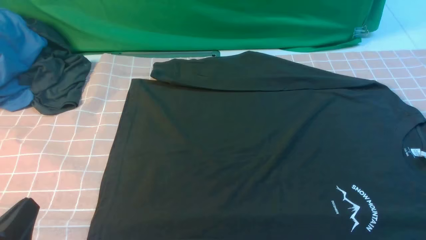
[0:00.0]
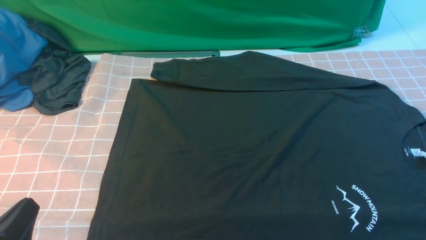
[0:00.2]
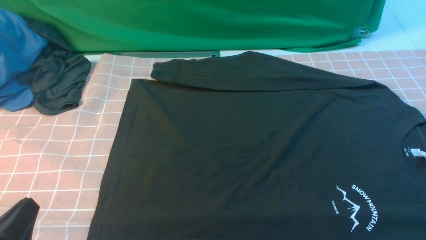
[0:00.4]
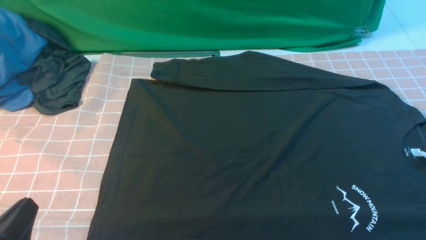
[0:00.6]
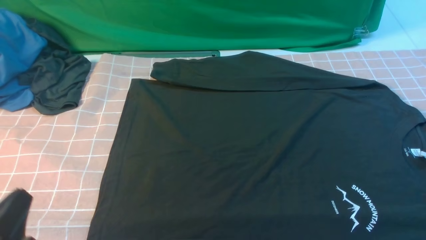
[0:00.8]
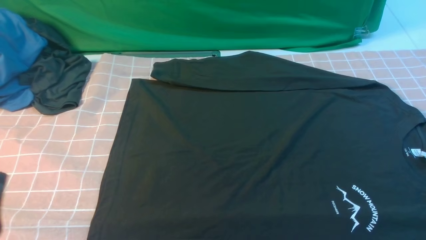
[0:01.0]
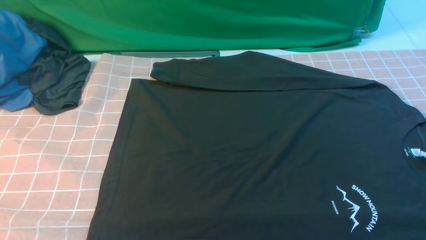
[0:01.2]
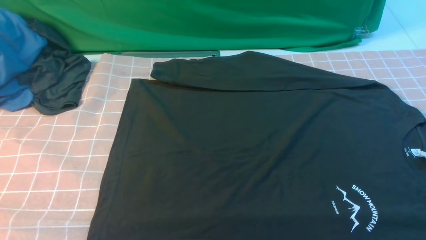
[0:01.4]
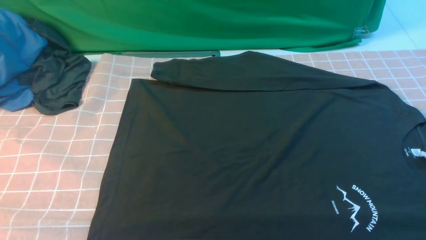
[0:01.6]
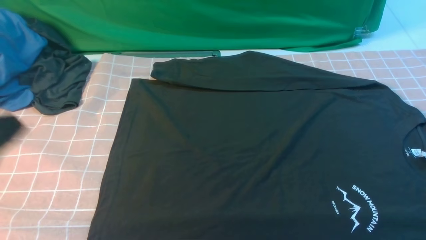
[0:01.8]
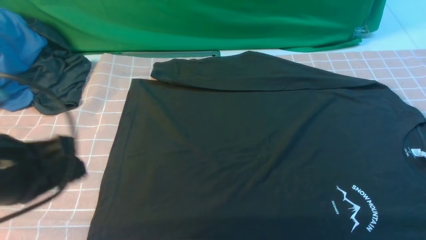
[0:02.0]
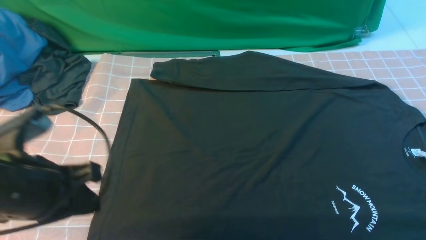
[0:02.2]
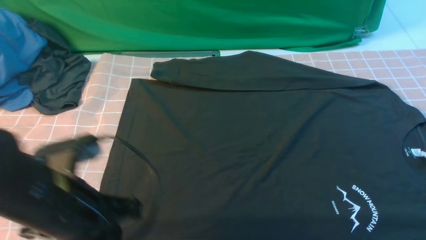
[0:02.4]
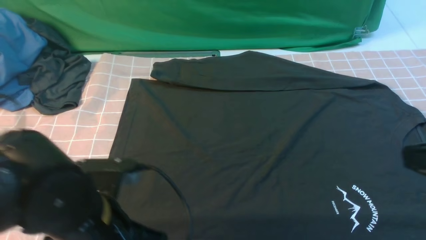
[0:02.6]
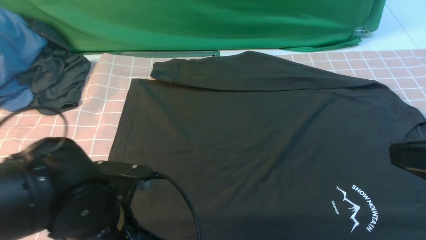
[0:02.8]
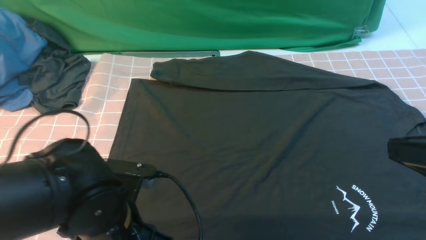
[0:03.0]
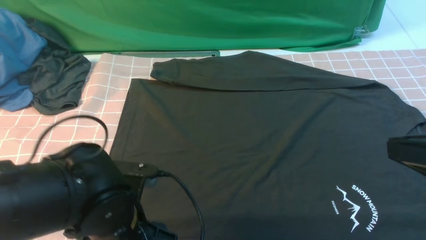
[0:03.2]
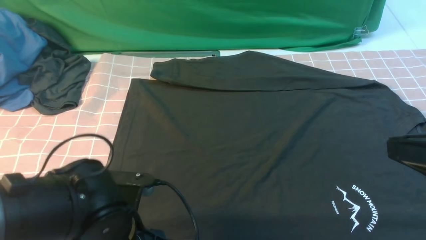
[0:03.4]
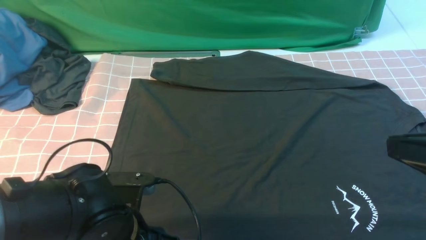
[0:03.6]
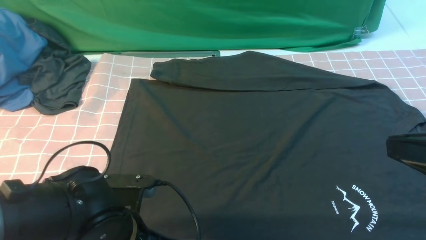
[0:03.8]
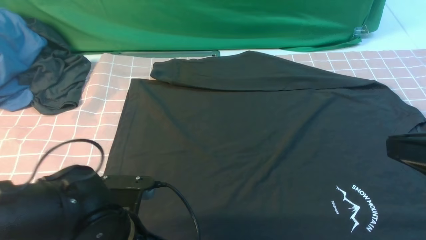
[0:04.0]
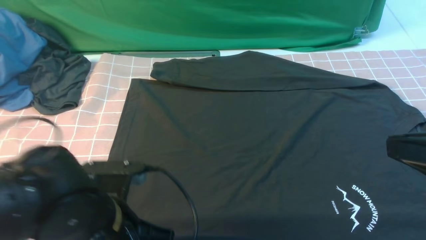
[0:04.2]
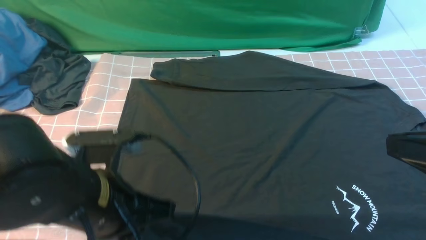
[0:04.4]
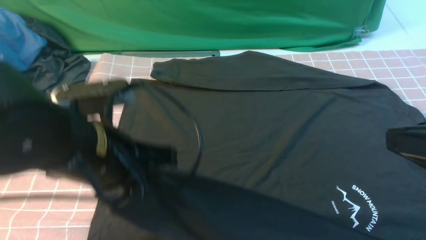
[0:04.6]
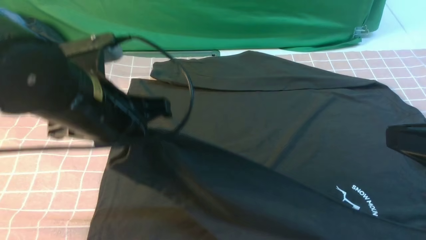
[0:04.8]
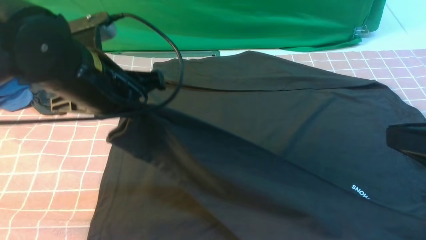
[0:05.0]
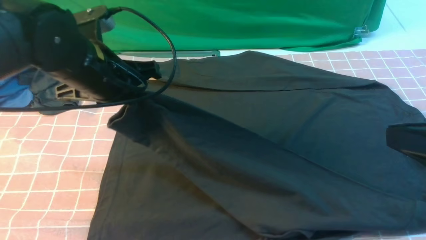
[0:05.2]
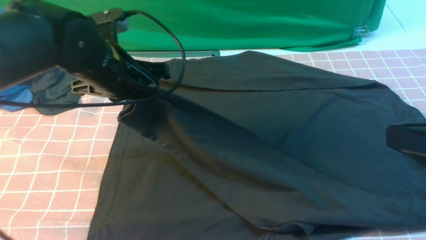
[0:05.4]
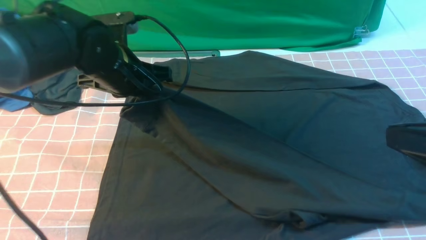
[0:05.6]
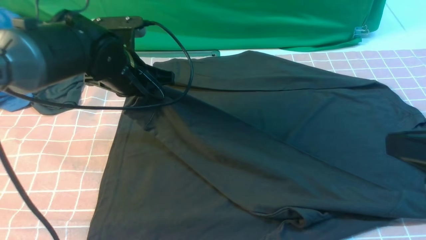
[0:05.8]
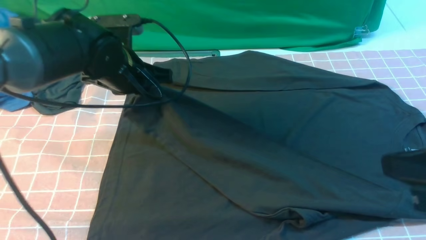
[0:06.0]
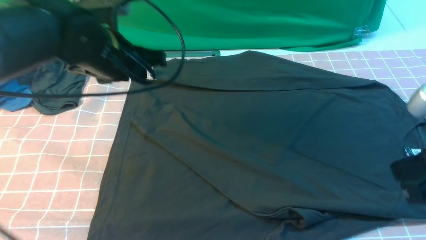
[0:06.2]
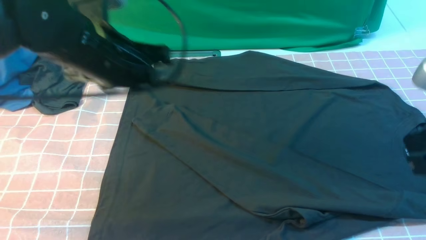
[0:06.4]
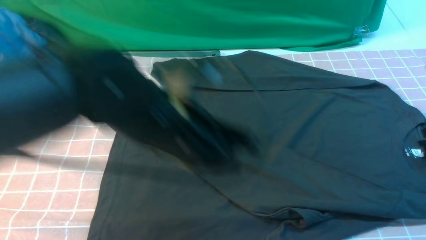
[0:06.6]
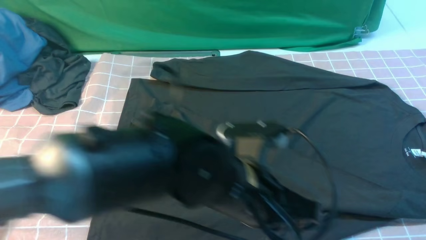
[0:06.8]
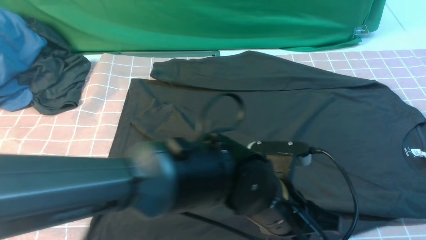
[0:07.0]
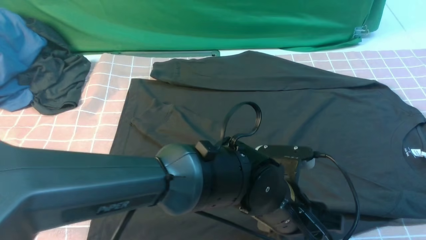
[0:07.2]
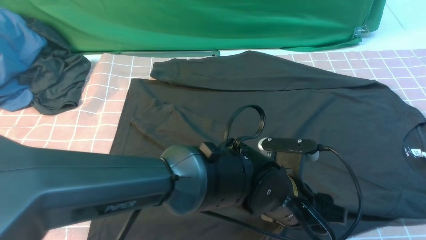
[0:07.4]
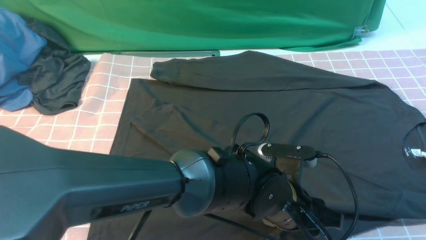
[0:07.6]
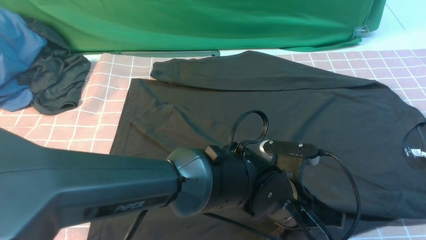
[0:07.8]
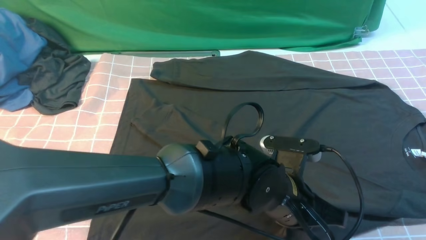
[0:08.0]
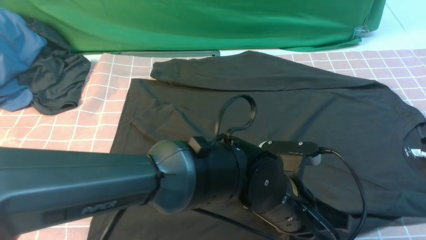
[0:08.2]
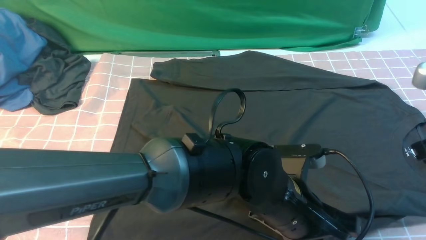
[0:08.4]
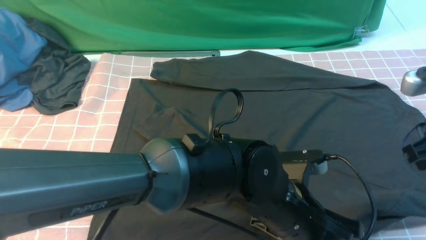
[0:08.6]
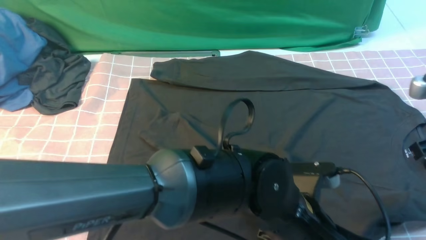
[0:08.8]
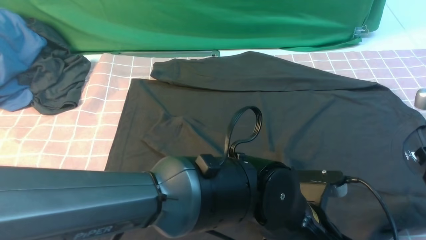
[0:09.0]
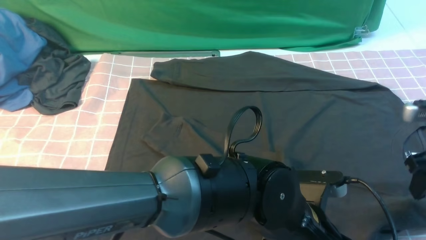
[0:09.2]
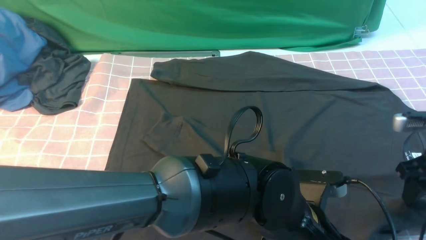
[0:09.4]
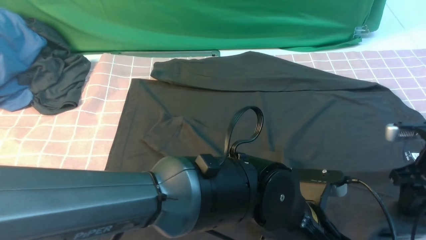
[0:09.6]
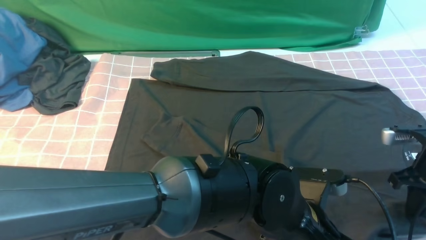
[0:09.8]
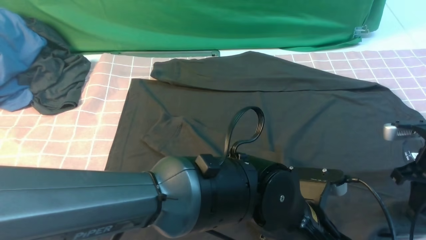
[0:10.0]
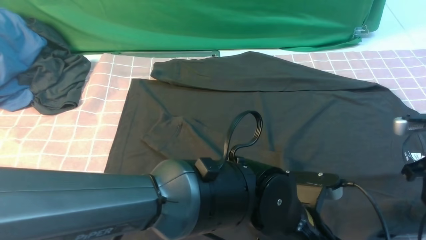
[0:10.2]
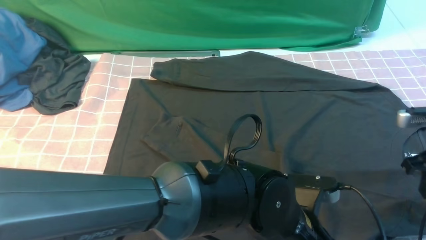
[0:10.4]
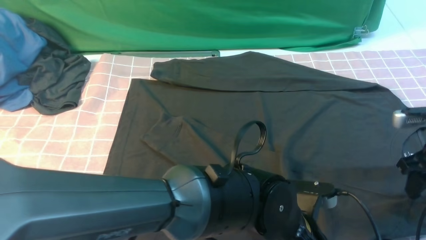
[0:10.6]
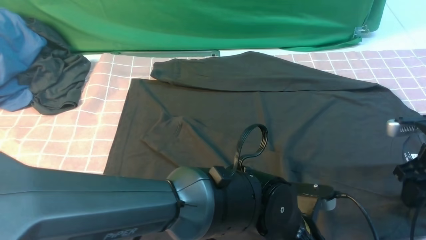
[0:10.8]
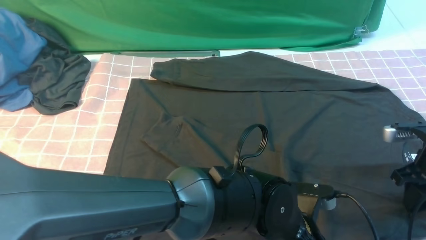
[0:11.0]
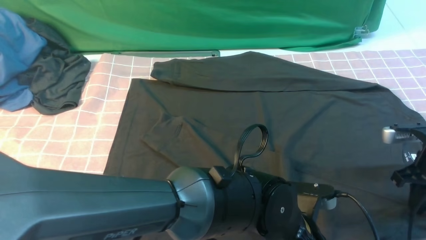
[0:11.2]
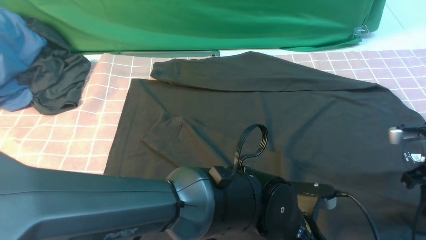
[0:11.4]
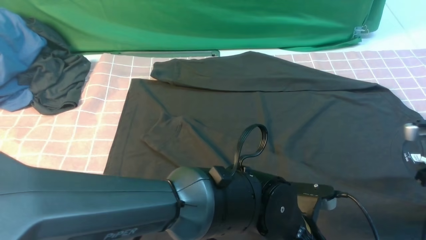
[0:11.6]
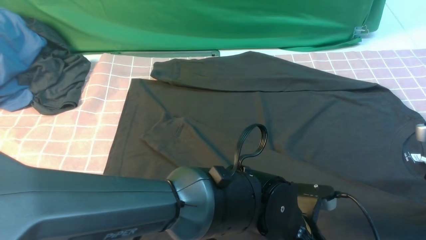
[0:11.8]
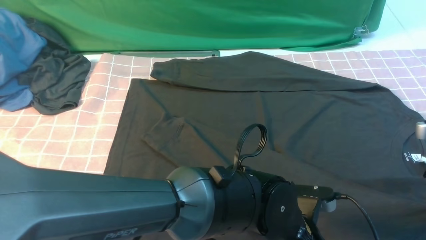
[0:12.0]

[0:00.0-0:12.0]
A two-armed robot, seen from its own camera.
Step, 0:00.0 to 0:04.0: use the left arm to clamp the cuff closest to it.
Step, 0:04.2 to 0:06.2: use the left arm to drag and place the cuff at the centered position on the left edge of the fabric.
0:00.0 to 0:01.6: The left gripper travels upward by approximately 15 cm.
0:01.6 to 0:03.0: The right gripper travels upward, to the left and forward by approximately 15 cm, and closes up. Meanwhile the left gripper travels downward, to the right and forward by about 20 cm, and opens up.
0:03.0 to 0:04.4: The left gripper travels upward by some 5 cm, and closes.
0:04.4 to 0:06.0: The left gripper is displaced forward by approximately 20 cm.
0:06.0 to 0:07.6: The right gripper goes roughly 5 cm forward and to the right, while the left gripper shifts roughly 30 cm to the right, backward and downward.
0:07.6 to 0:09.0: The left gripper moves backward, some 5 cm, and closes its fingers, while the right gripper moves downward and forward, some 10 cm, and opens.
0:09.0 to 0:10.4: The right gripper shifts approximately 5 cm downward, and closes, then reopens.
0:10.4 to 0:12.0: The right gripper opens and closes again.

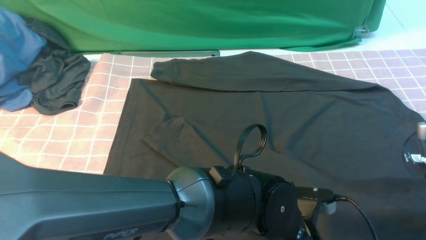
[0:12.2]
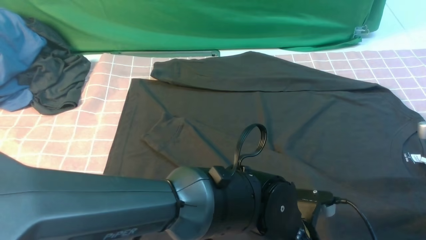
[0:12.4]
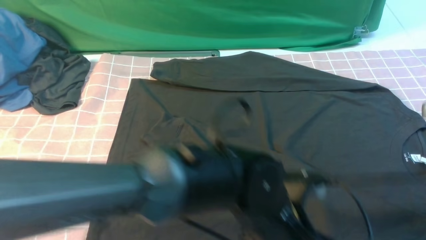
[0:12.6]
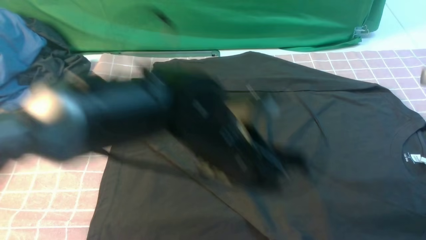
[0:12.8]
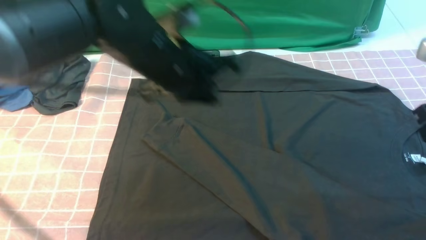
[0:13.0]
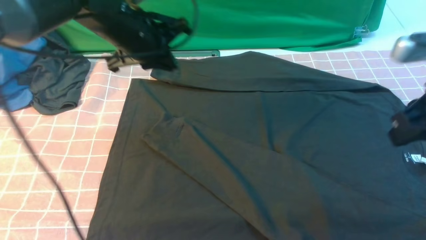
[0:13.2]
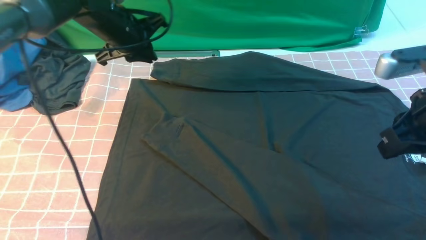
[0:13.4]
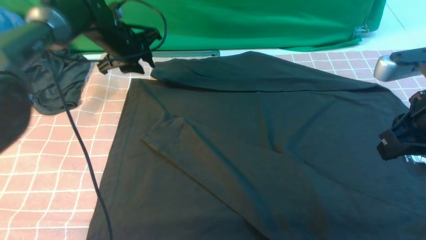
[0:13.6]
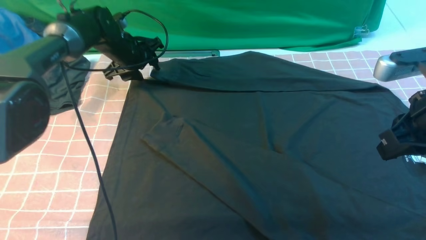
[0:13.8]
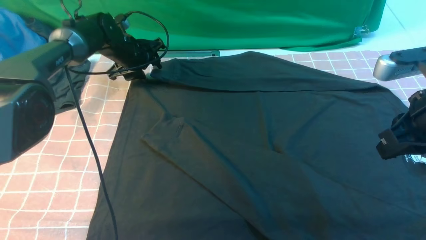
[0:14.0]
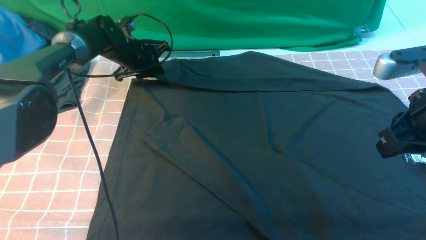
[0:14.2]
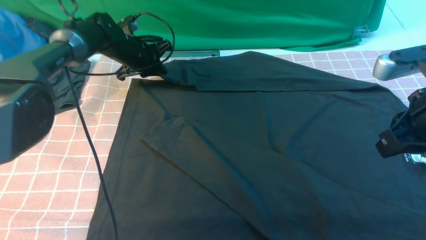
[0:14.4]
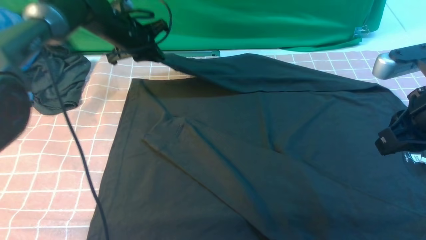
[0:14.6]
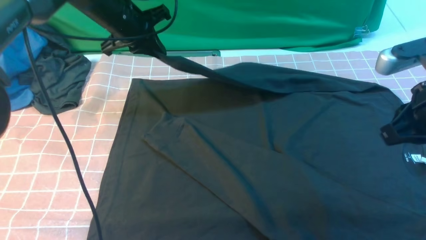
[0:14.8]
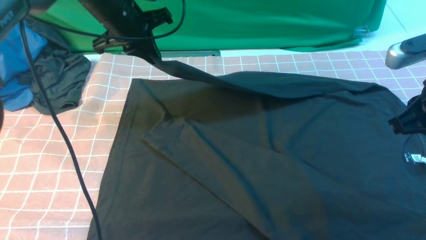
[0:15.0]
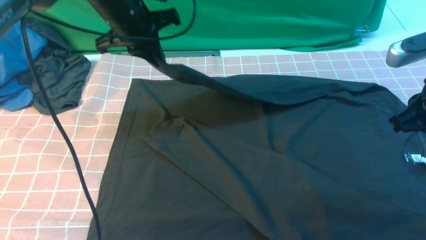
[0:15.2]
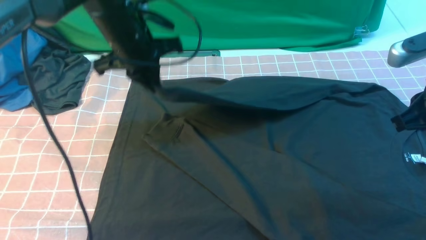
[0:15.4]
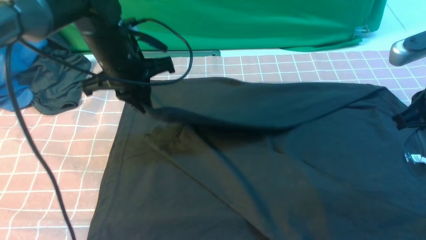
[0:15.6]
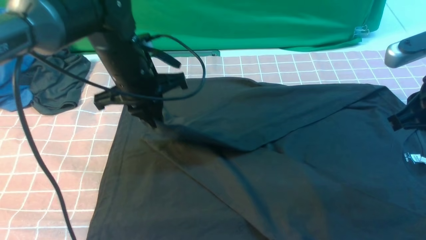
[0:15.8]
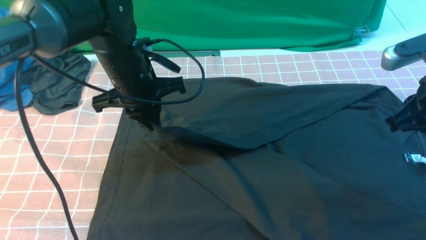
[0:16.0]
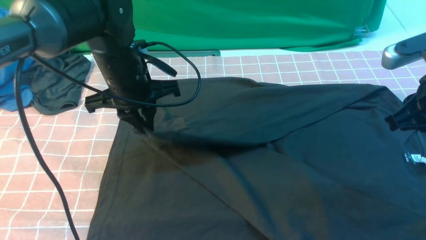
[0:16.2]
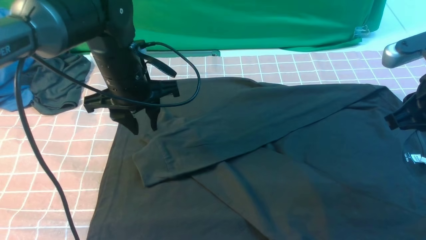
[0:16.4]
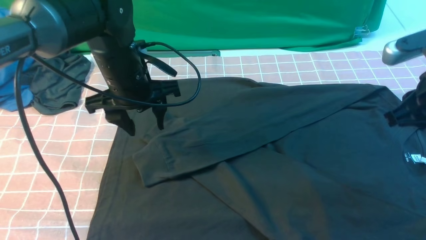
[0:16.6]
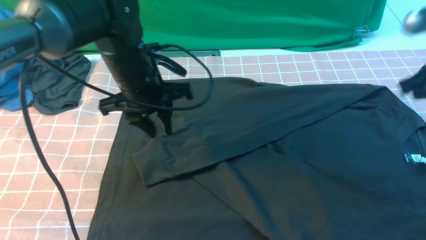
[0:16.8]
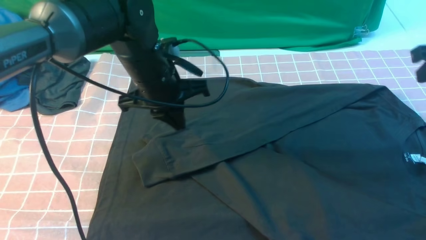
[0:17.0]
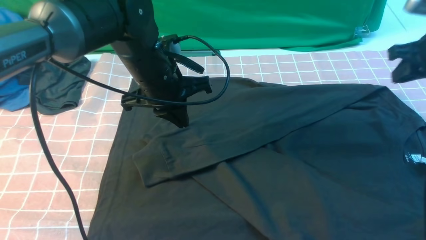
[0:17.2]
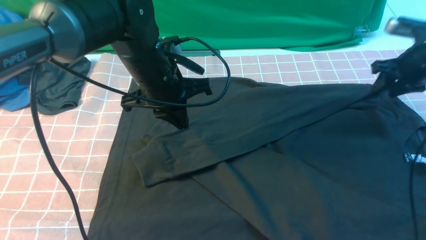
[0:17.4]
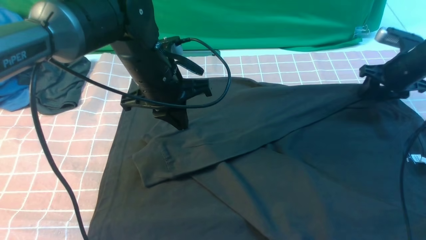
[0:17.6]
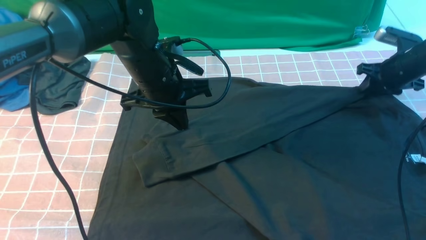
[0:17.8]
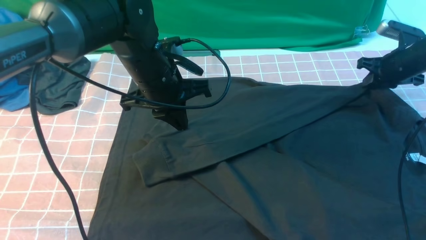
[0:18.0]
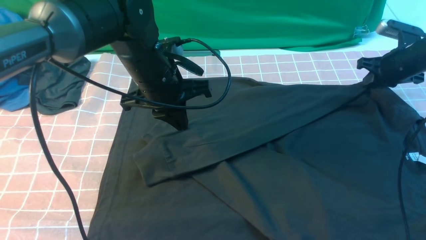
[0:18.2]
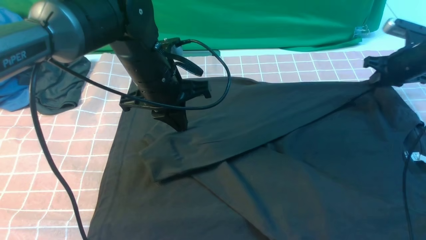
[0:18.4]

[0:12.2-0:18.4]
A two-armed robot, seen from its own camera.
Step, 0:12.2 to 0:14.4: use the left arm to clamp the cuff farthest from it.
Step, 0:14.6 to 0:16.4: use the left arm to drag and drop the cuff onto the cuff closest to the left arm.
0:12.2 to 0:13.8: The left gripper shifts some 50 cm forward and to the left, and opens; the right gripper travels to the left and upward by roughly 15 cm.
0:13.8 to 0:15.4: The left gripper is displaced backward, upward and to the right by approximately 20 cm, and closes its fingers.
0:15.4 to 0:16.8: The left gripper shifts by approximately 5 cm, and opens its fingers, while the right gripper travels forward by some 5 cm.
0:16.8 to 0:18.4: The left gripper closes up, while the right gripper heads forward, downward and to the right, covering about 25 cm, and opens, then closes again.
